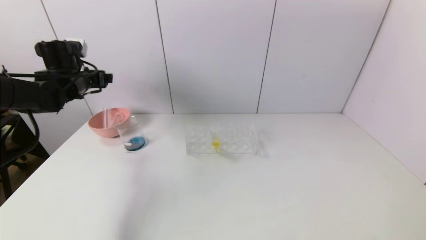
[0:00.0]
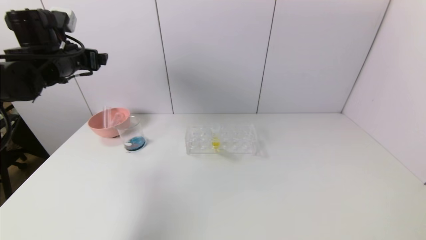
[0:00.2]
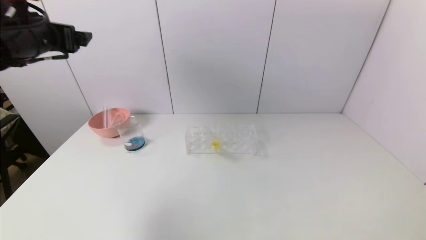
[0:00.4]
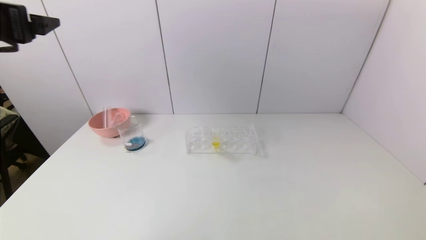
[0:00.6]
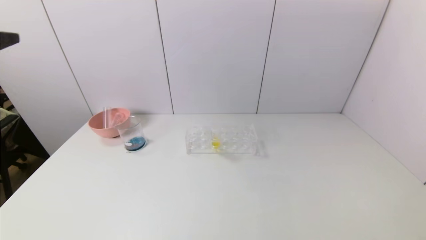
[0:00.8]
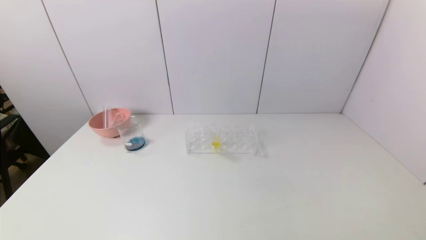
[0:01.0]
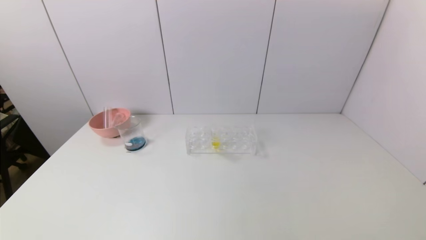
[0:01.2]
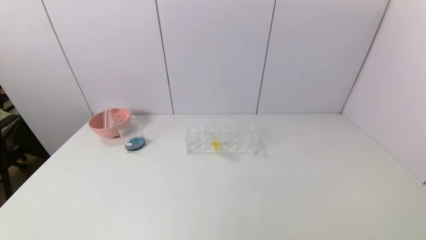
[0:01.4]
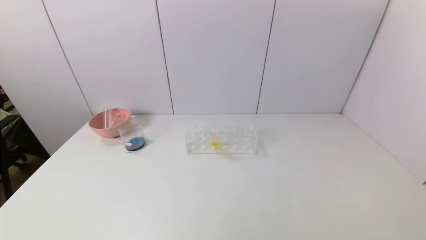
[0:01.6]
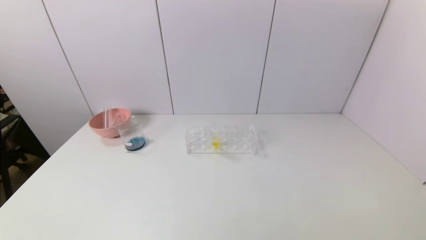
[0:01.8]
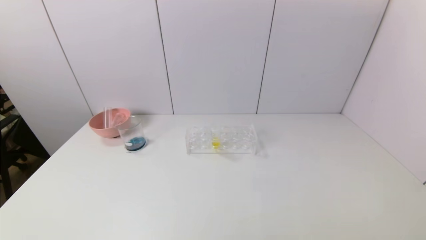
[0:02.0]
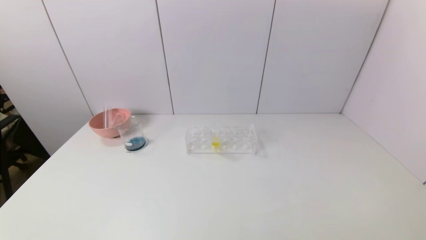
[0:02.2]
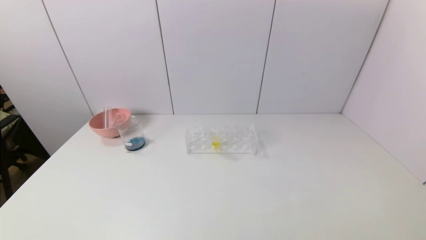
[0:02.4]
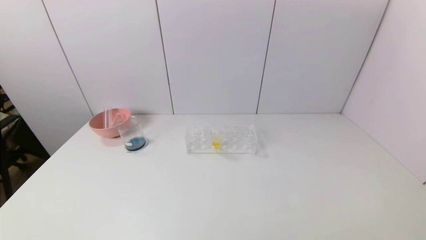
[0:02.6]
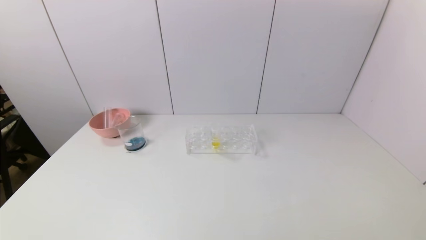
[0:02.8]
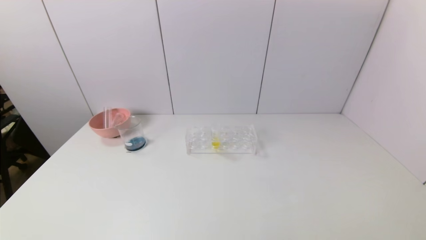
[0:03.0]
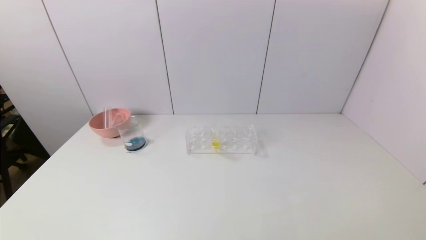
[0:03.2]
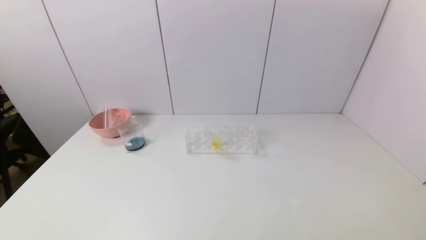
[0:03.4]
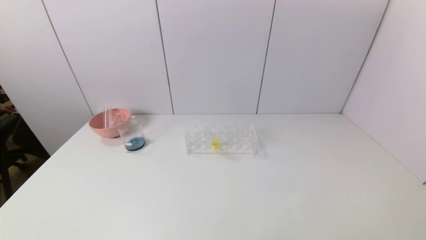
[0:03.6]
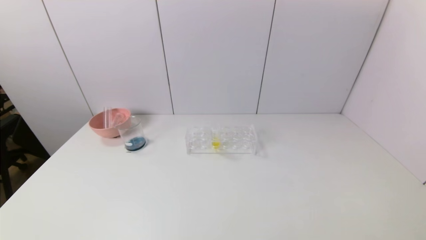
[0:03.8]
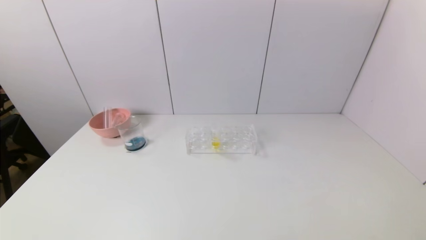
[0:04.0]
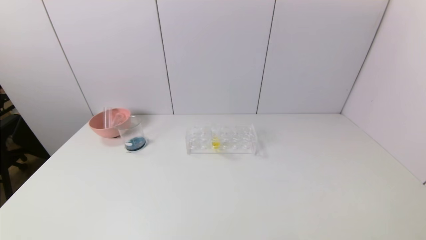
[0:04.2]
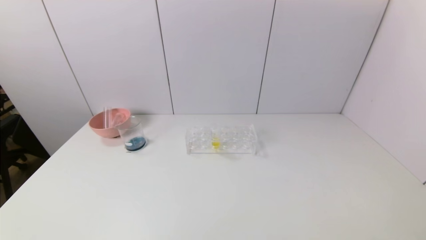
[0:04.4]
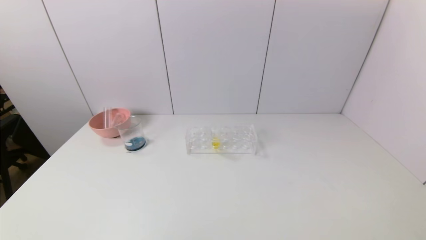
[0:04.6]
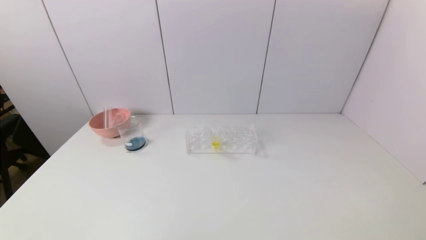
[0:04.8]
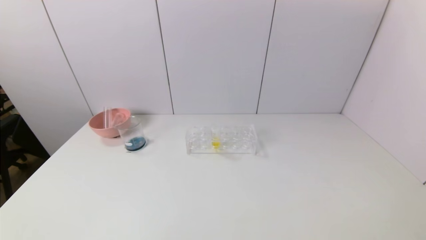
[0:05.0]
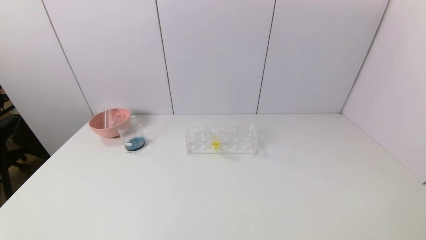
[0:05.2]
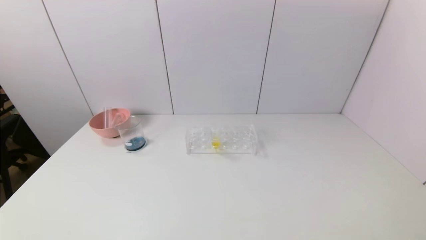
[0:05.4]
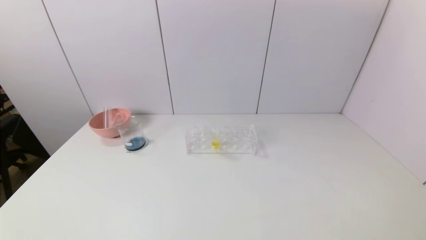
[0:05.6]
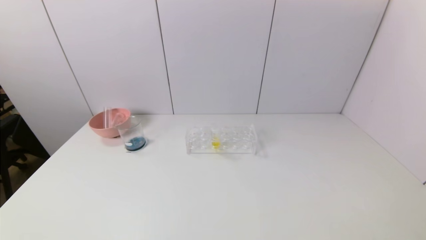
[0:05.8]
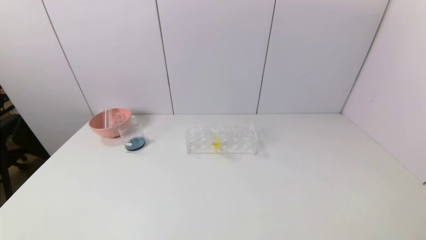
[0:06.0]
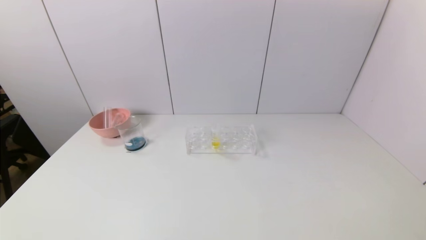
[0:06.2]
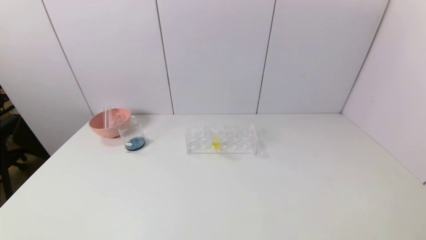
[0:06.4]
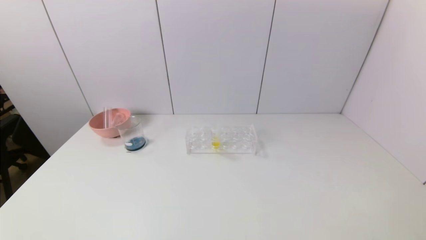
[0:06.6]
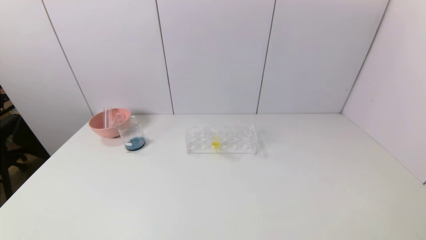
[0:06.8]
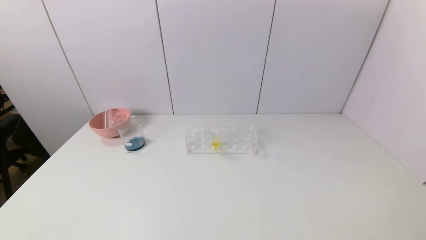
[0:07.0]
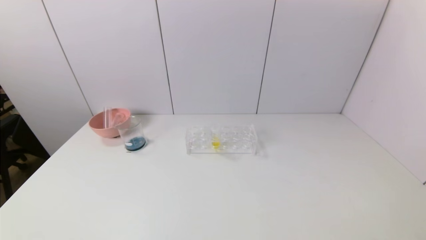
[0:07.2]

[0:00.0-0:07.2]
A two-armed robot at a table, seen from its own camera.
Task of the whole recording: pick up the test tube with red pigment and the test tube with blue pigment by grippers and pour them into the container.
0:00.0 to 0:01.4: The left gripper moves backward, some 40 cm.
